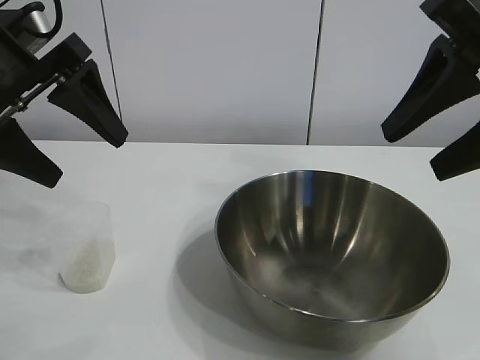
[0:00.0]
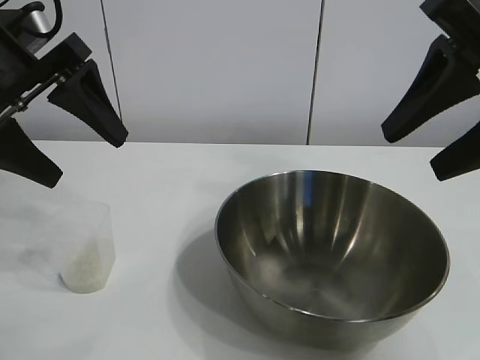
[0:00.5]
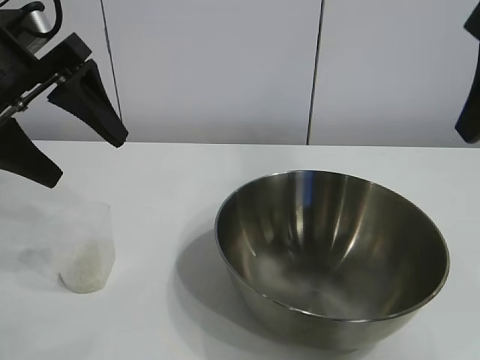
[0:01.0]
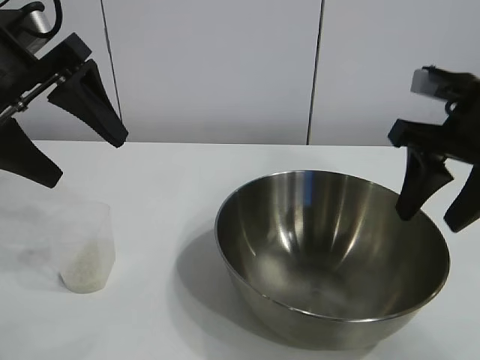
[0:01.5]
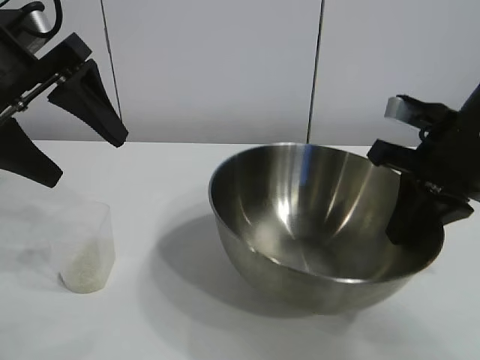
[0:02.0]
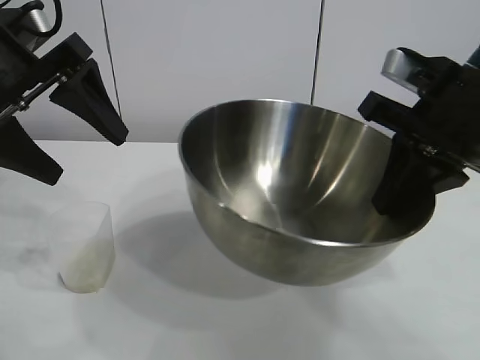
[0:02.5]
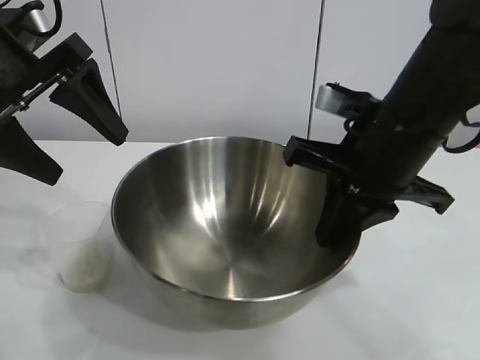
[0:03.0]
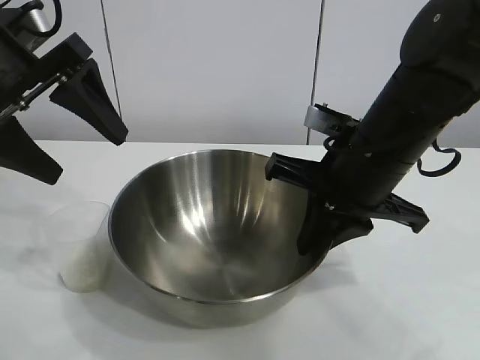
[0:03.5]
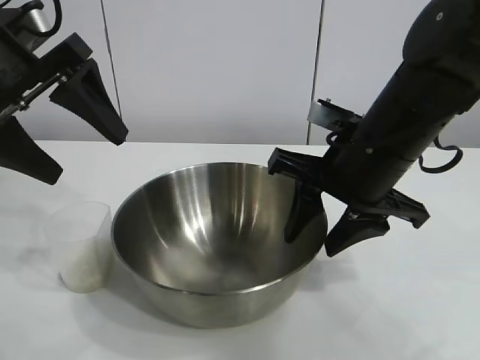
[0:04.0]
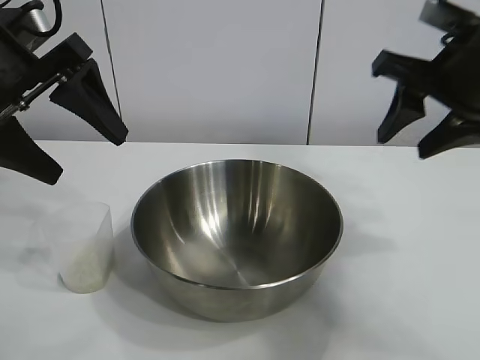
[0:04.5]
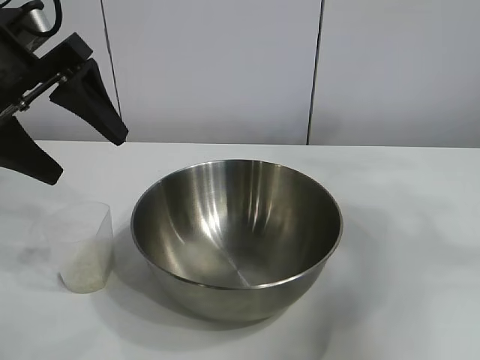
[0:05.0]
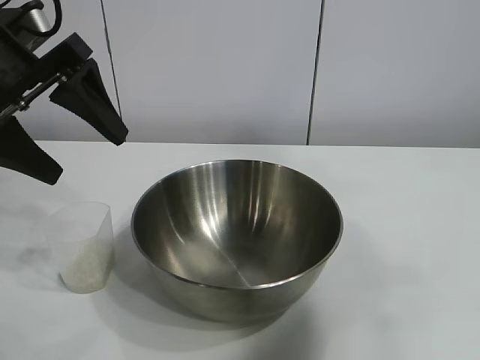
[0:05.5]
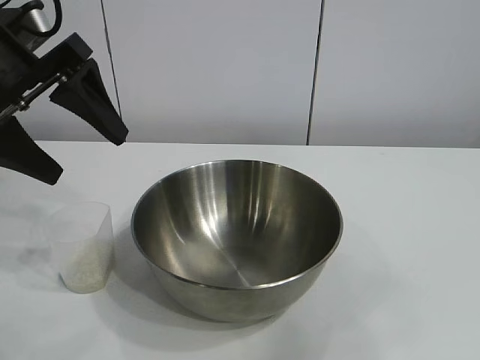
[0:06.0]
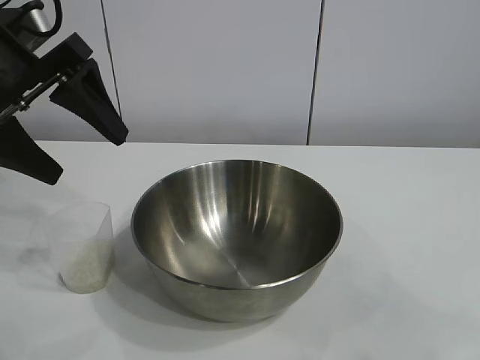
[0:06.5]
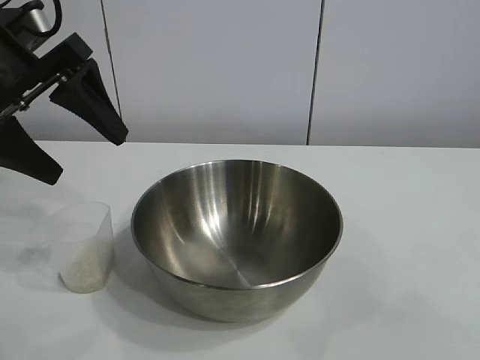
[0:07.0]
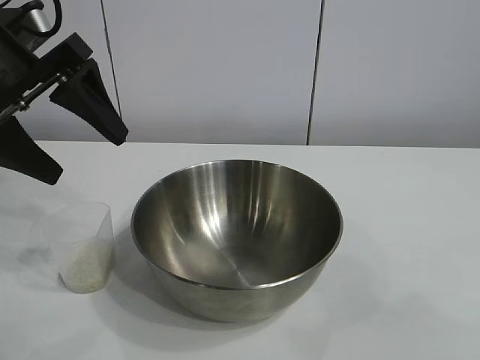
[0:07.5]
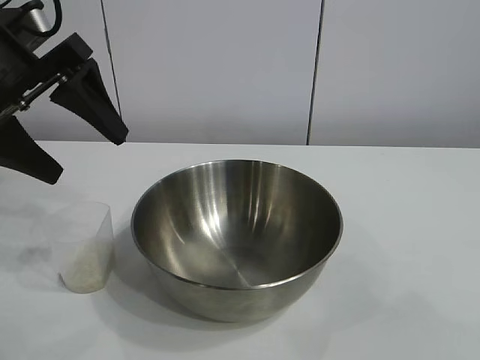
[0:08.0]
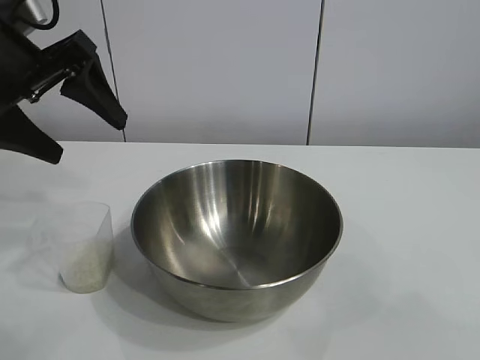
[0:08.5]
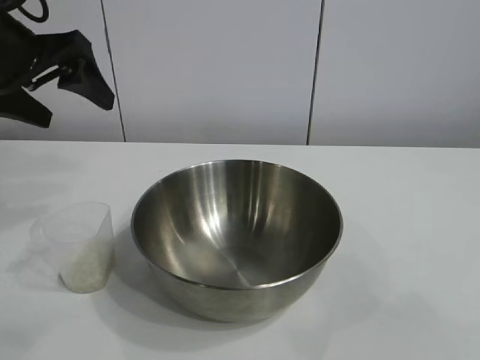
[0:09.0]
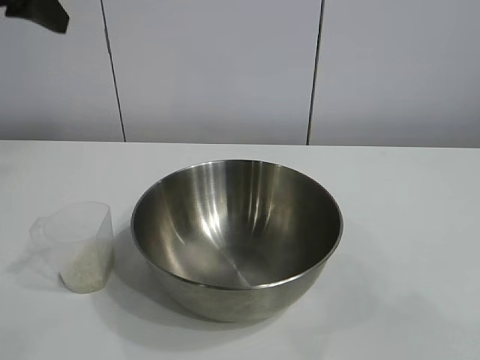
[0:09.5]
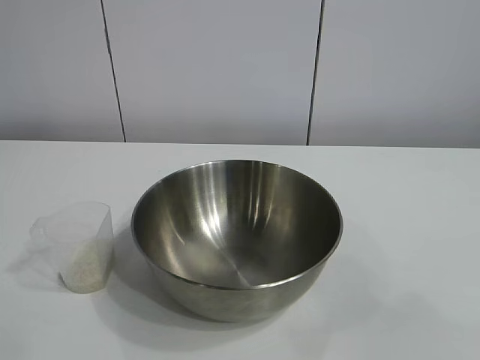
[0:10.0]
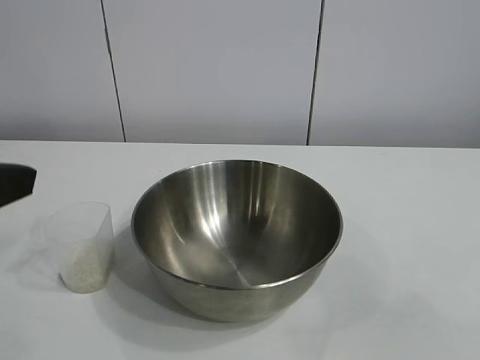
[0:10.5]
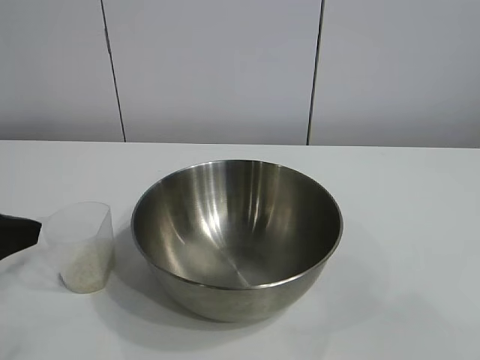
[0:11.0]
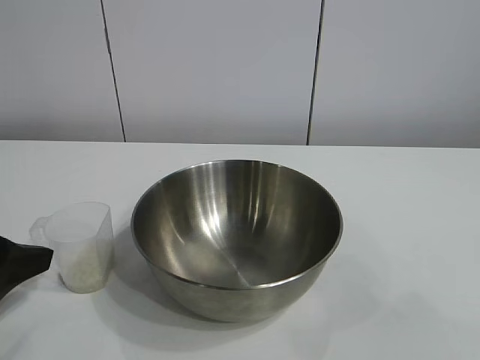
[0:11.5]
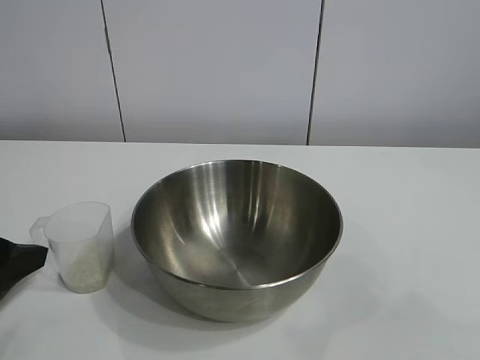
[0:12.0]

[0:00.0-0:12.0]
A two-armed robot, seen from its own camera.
Task of the whole recording: the right gripper grasp the rice container and place it in the center of the table, the left gripper grasp the rice scoop and pour the rice into the rice container.
Step, 0:01.0 to 0:03.5: Move the bowl in the center of view with right gripper.

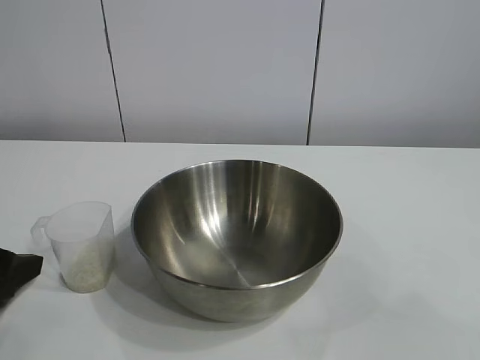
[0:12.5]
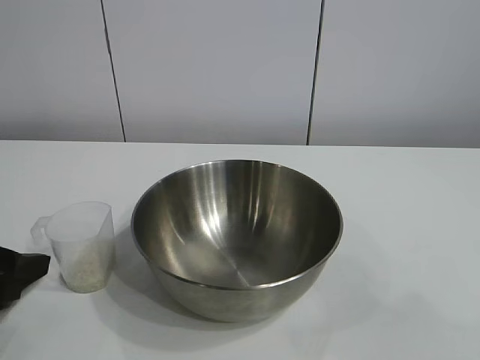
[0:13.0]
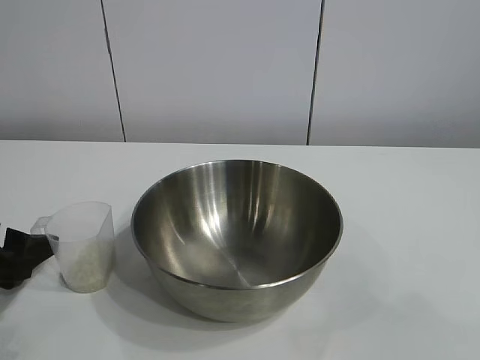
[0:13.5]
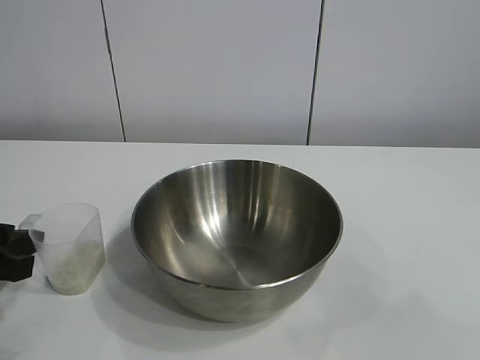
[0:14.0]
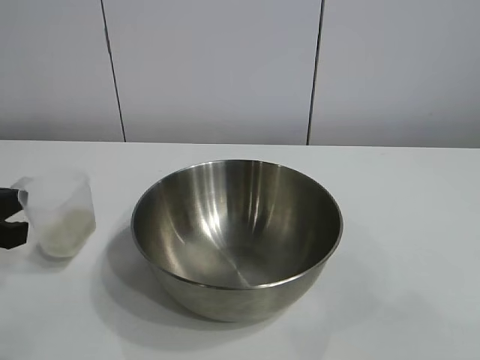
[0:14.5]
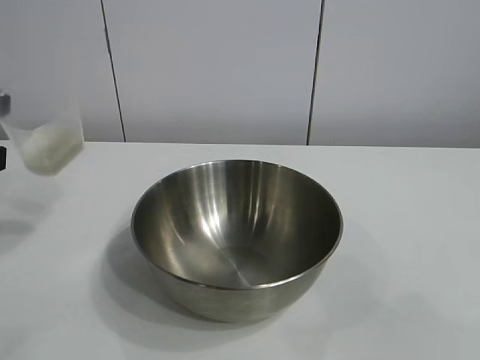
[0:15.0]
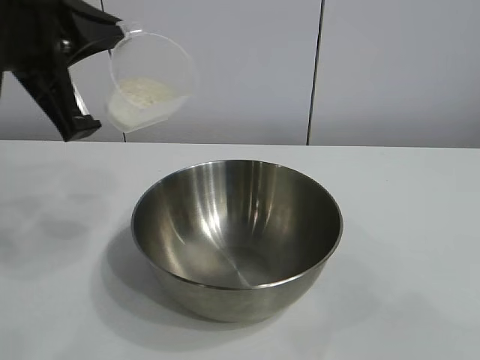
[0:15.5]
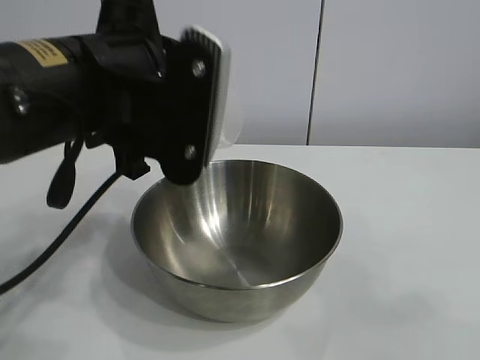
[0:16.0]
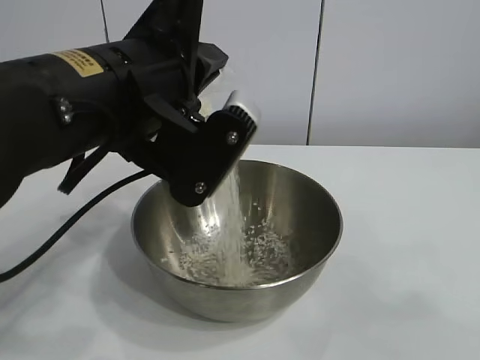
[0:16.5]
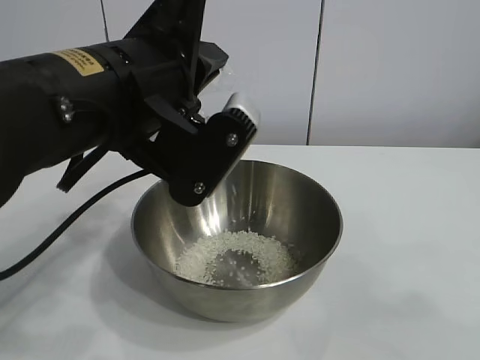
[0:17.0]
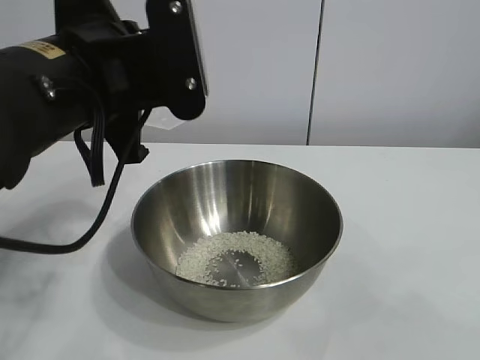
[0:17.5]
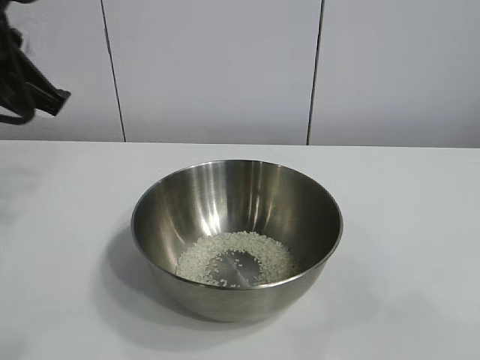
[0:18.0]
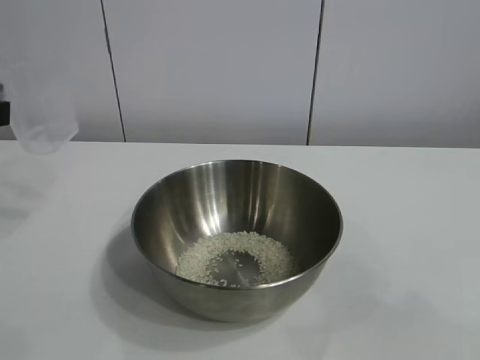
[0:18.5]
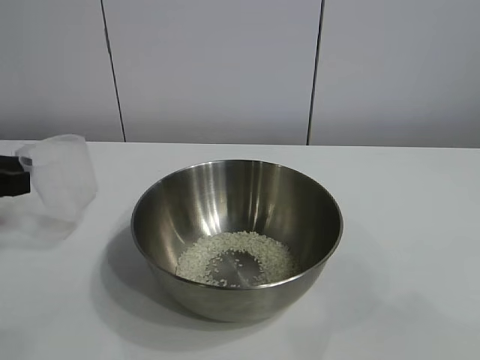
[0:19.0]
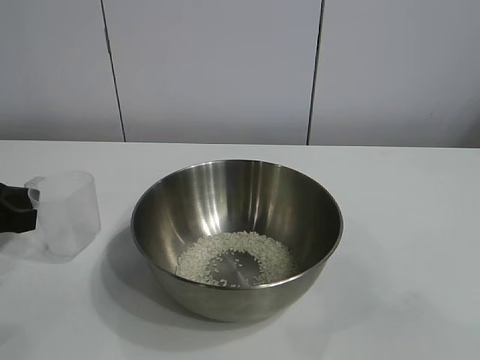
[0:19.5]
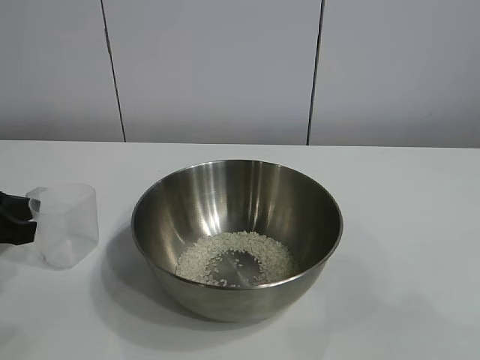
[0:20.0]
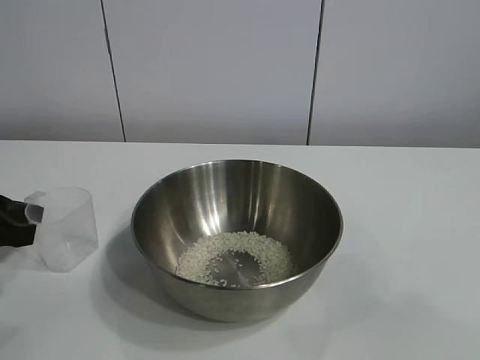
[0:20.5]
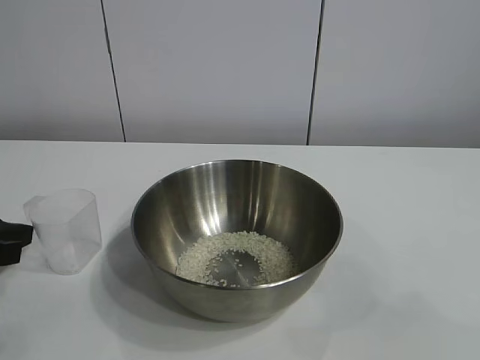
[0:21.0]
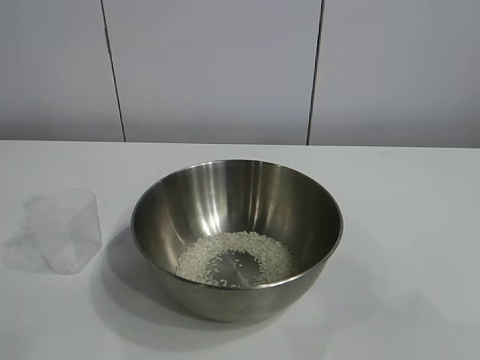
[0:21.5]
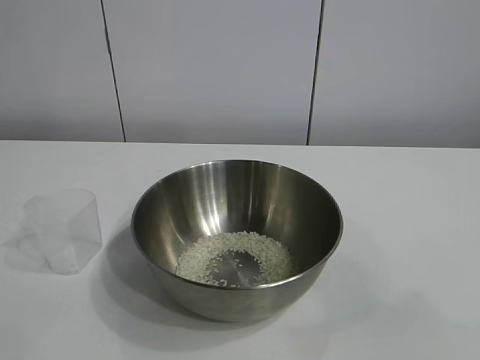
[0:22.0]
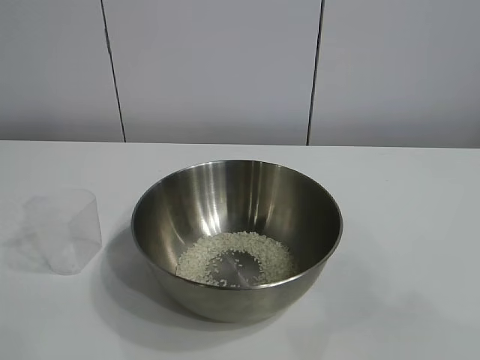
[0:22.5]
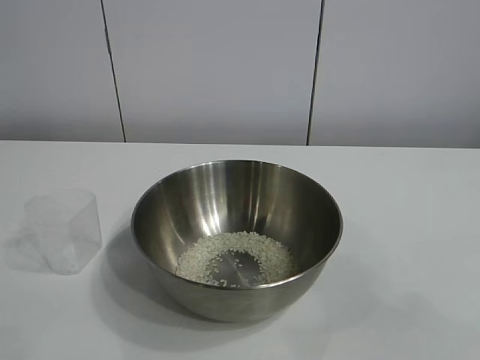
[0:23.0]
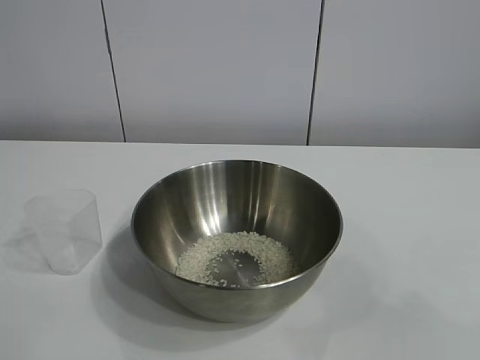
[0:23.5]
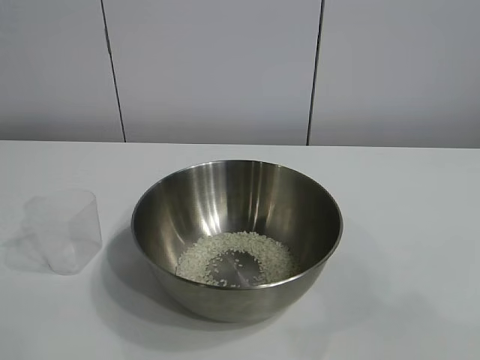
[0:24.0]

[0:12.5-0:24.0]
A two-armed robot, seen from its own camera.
Task of the whole recording: the right gripper grasp the rice container and place it in the center of the table, the left gripper grasp the rice scoop and pour the rice into the rice container.
Step, 0:14.5 to 0:17.0: Pour the rice from the cup into the bowl with the left gripper.
Step, 0:17.5 to 0:20.5: Place the cup on the table with the left gripper.
